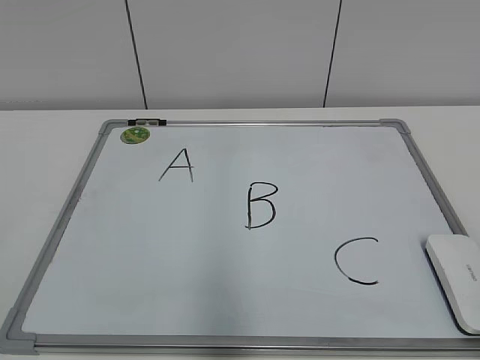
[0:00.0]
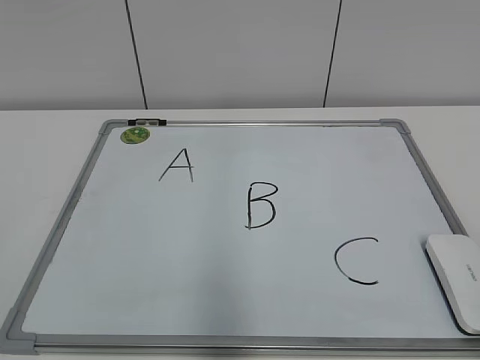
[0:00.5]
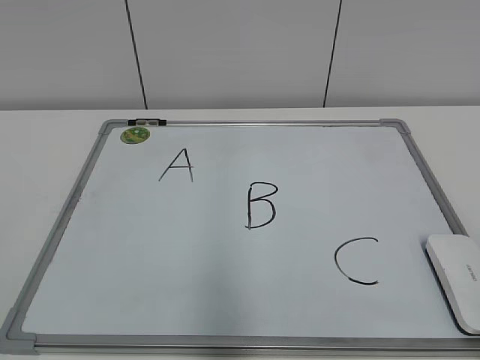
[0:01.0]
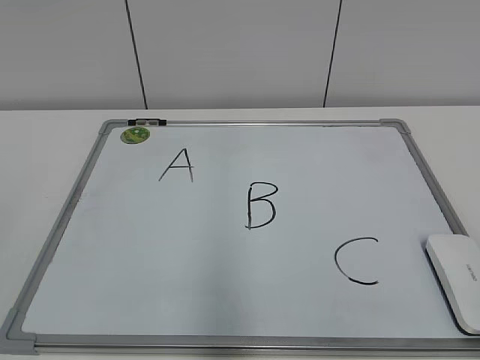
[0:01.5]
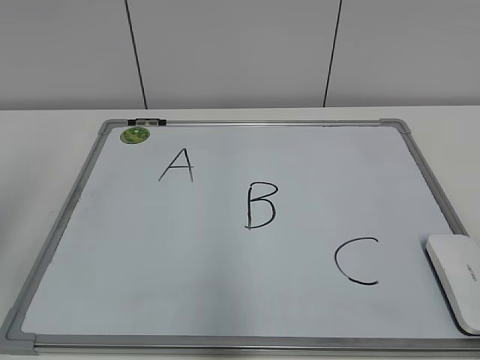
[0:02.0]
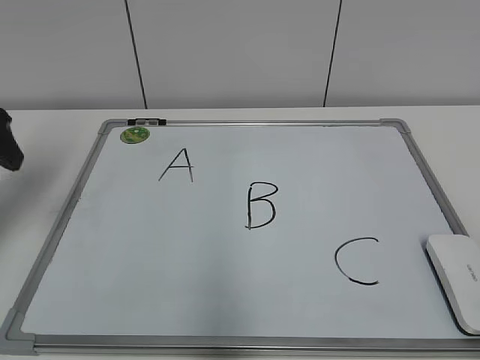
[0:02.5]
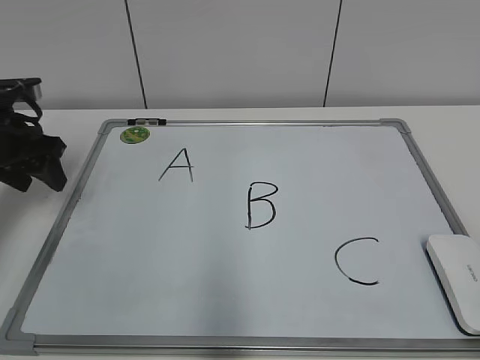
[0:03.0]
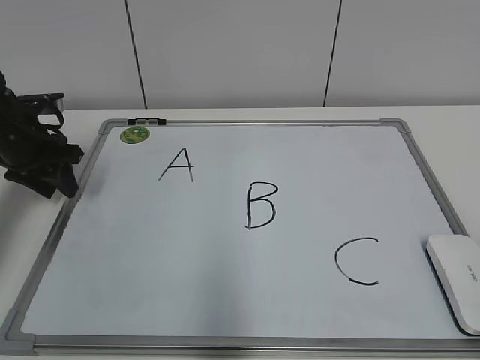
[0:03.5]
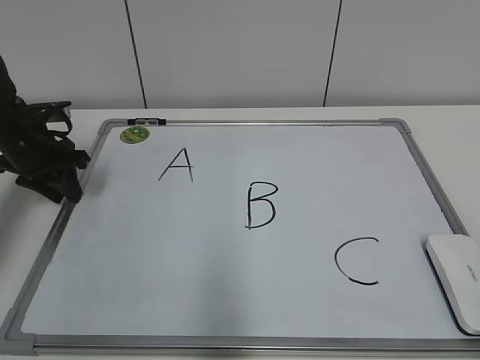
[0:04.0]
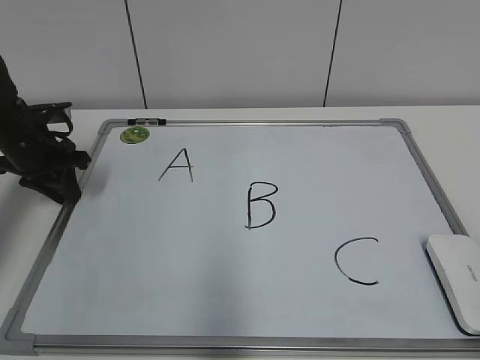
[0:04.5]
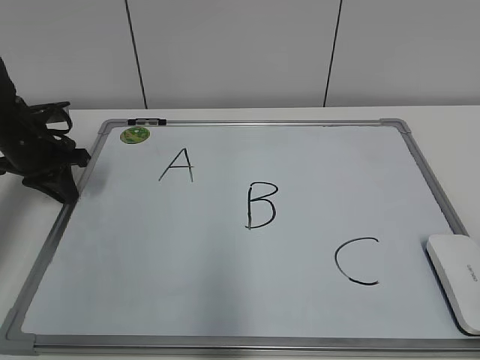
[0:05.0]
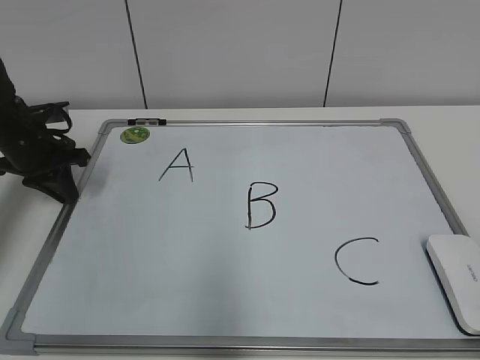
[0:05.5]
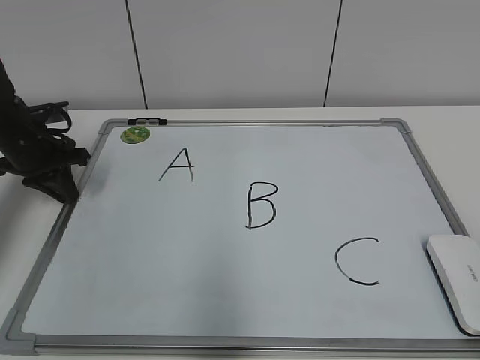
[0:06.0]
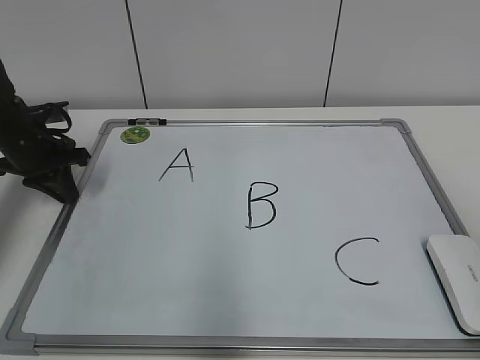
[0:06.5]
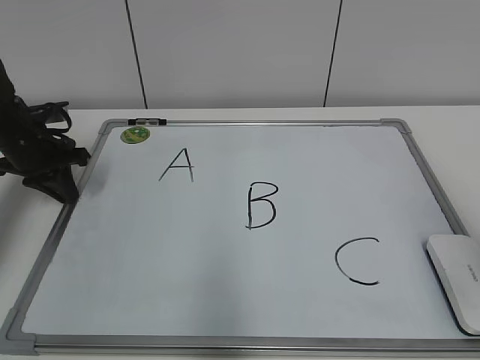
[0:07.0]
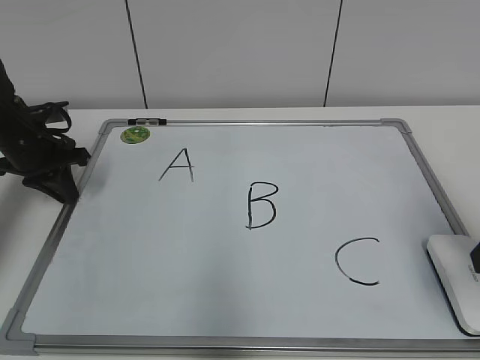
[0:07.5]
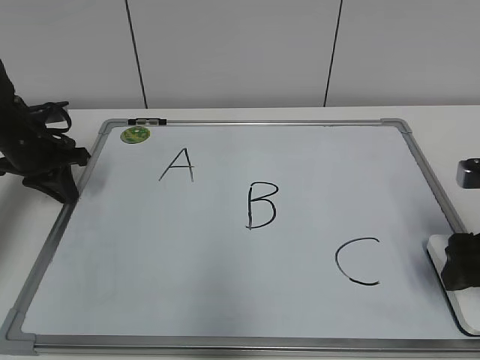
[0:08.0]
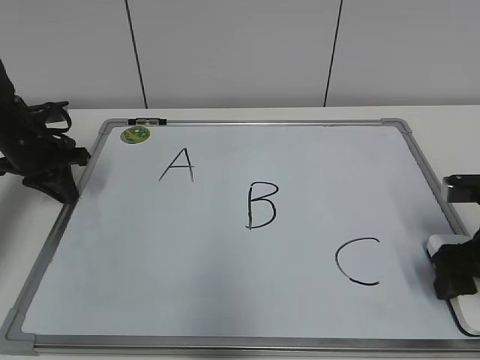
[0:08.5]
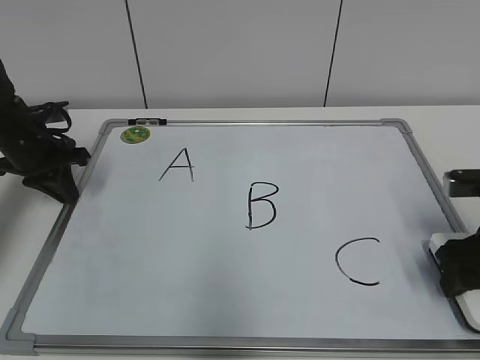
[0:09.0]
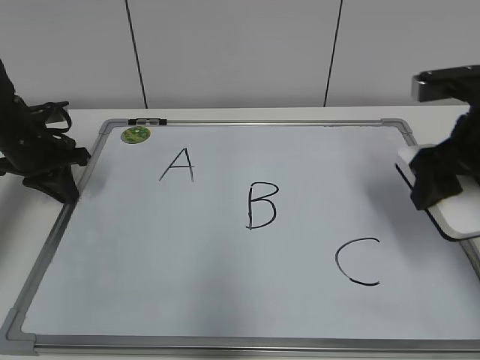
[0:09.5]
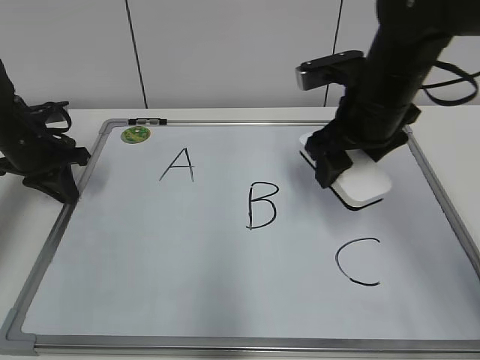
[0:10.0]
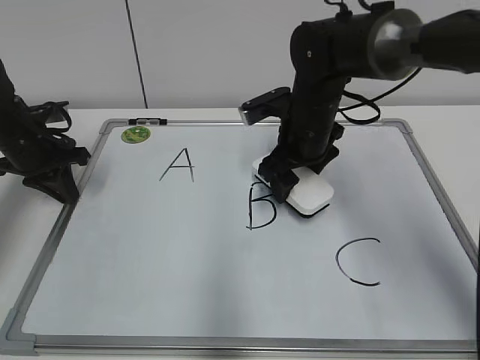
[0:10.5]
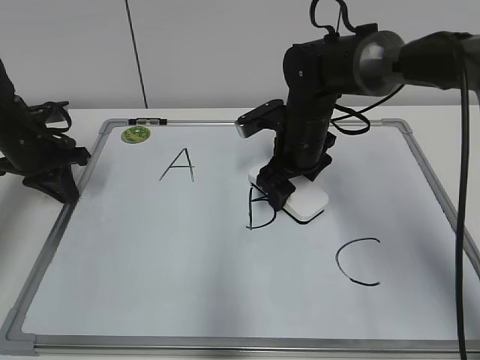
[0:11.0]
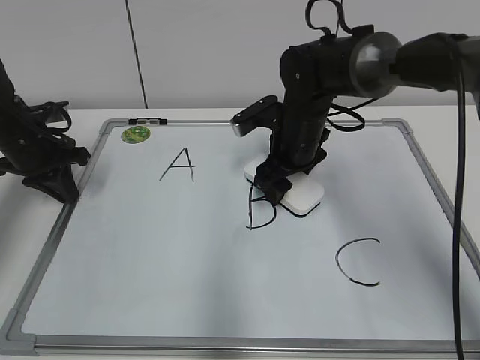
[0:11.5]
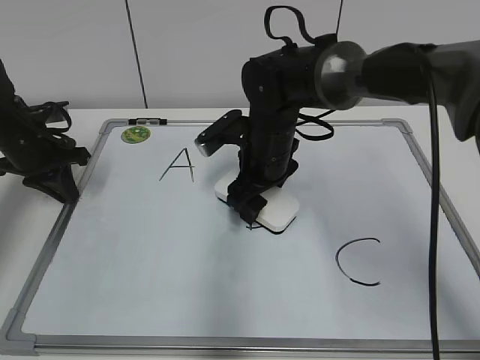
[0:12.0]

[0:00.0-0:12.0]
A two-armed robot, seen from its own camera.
Task of the whole recording: pick up the eraser on the blackboard and erase the letter "B".
Step, 0:00.0 to 0:05.0: Hold the drawing board steady with your left hand.
Step, 0:05.5 to 0:08.5: Grab the eraser with your right hand.
0:02.0 to 0:04.0: The left gripper is displaced forward and downward by about 30 cm, and closes up.
0:04.0 to 0:06.0: The two grippers keep their place.
0:06.0 to 0:08.0: The right gripper travels forward and downward by about 25 cm, and opens.
0:08.0 to 0:10.0: The right gripper travels to the left, forward and upward by some 20 cm, and closes up.
0:10.0 to 0:12.0: The right gripper heads to the left and downward, covering about 15 cm.

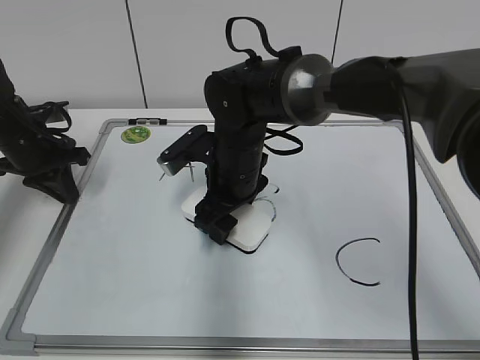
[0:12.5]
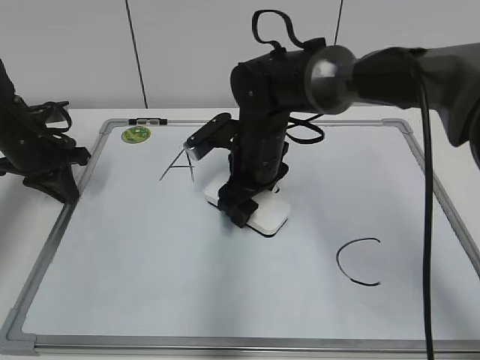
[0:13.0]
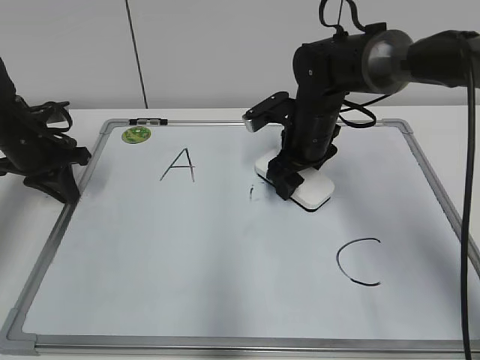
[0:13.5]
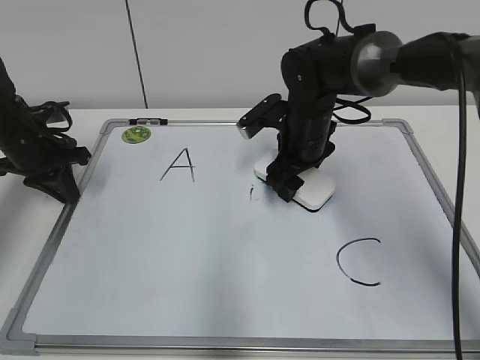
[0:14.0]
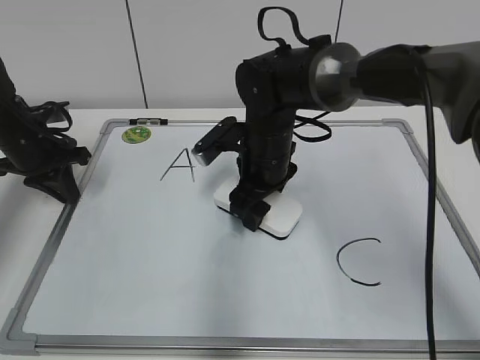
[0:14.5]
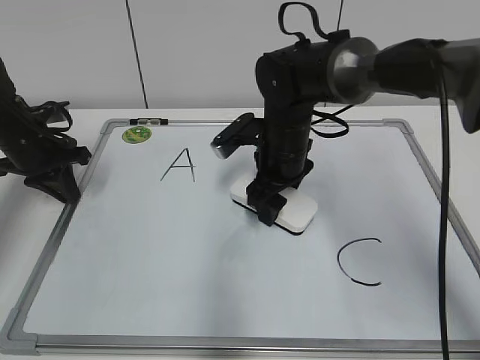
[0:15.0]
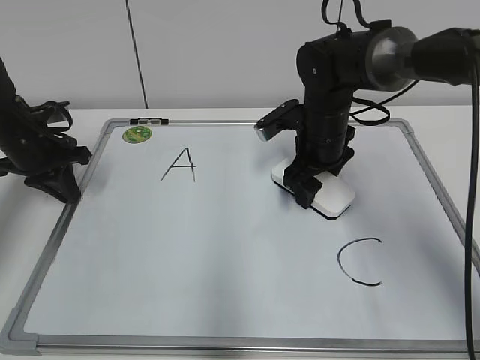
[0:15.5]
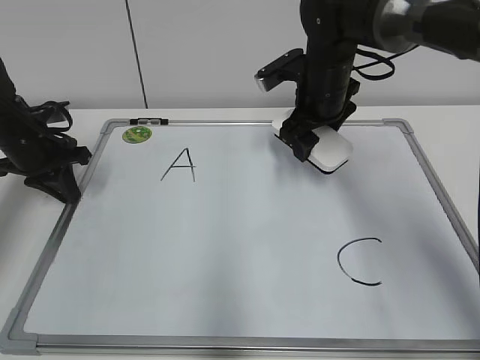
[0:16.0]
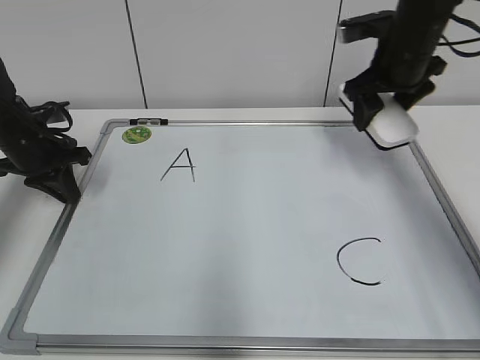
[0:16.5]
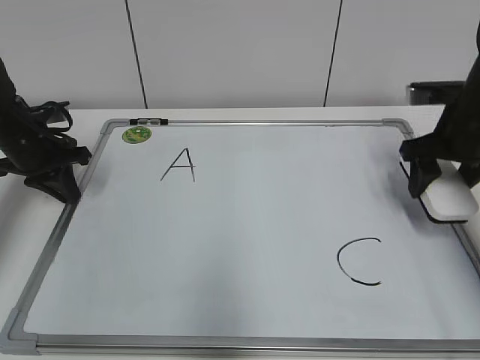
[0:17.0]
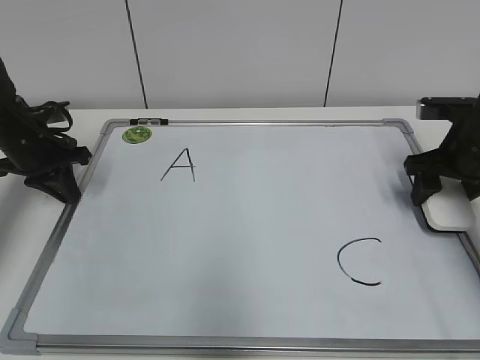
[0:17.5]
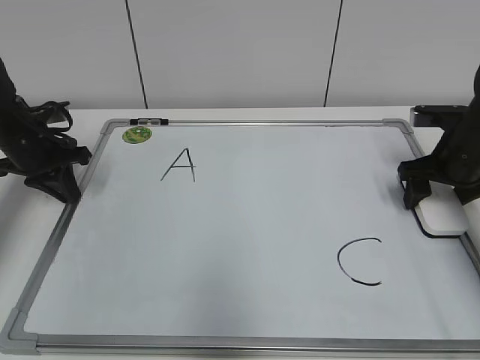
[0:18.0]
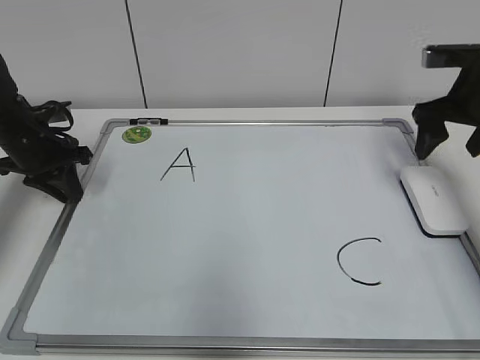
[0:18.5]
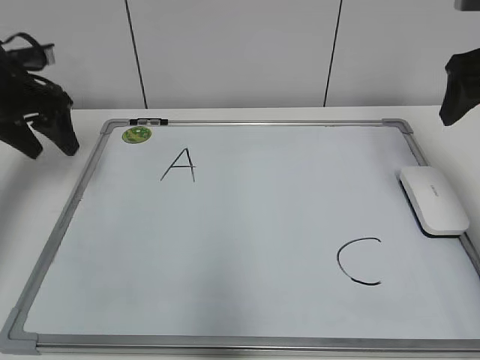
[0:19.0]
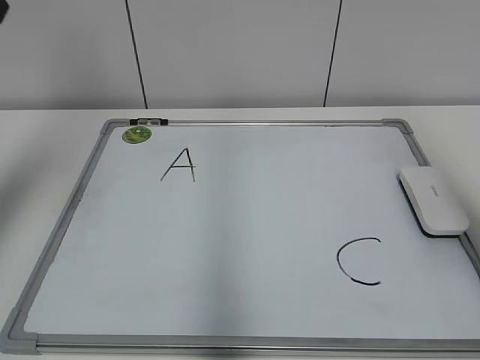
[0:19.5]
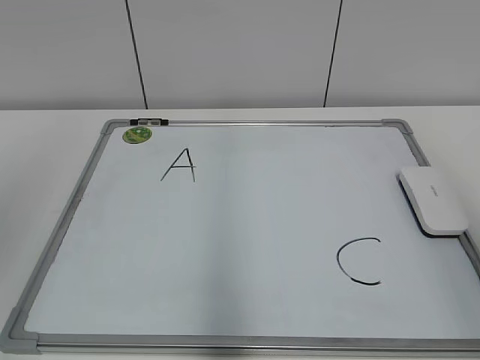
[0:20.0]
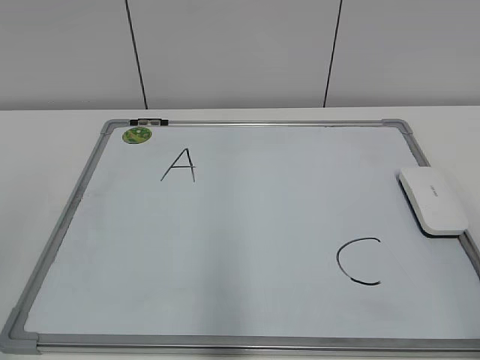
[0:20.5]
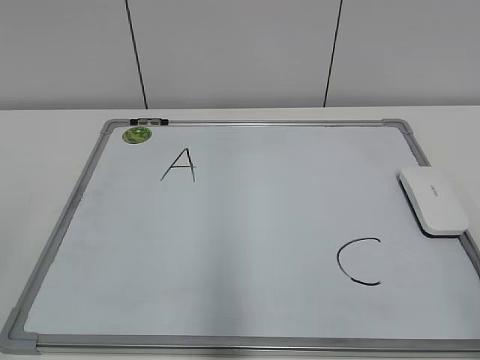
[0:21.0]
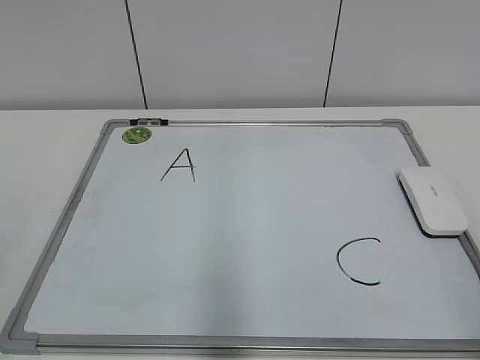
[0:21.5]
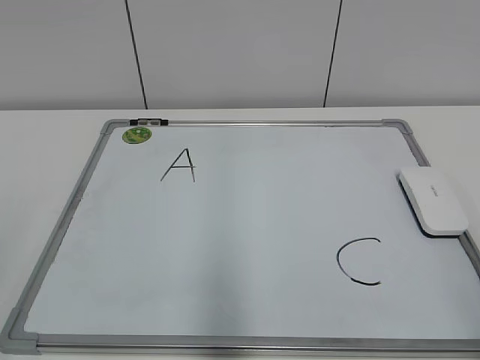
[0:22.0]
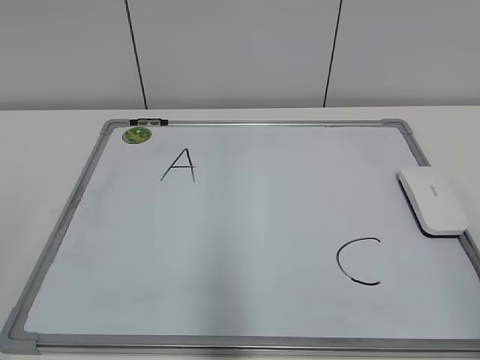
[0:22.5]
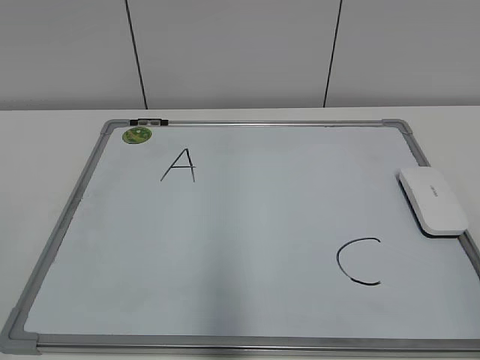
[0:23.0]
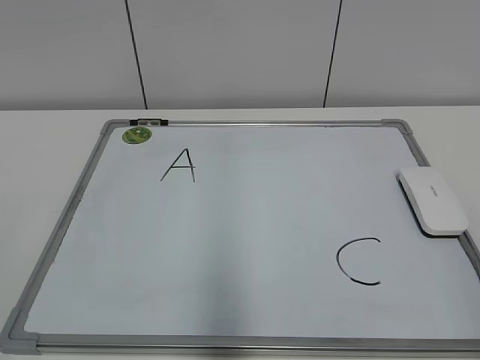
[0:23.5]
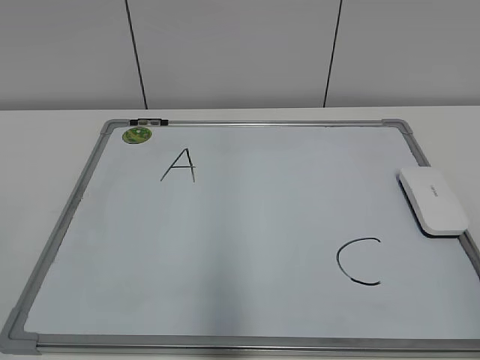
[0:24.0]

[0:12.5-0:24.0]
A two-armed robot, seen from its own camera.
Task of the whole recording: pick up the eraser on the blackboard and erase the letter "B".
Step, 0:12.5 to 0:15.0: Erase the letter B with your right hand.
Step, 0:15.5 to 0:18.0: Put down the eraser with your right hand.
0:14.5 to 0:16.5: The right gripper travels to the right and upward by roughly 20 cm.
0:16.5 to 0:18.5: The right gripper shifts some 5 cm to the right, reaches roughly 10 cm downward, then returns, and opens.
0:18.5 to 0:20.0: The two grippers go roughly 35 cm backward and upward. The left gripper opens.

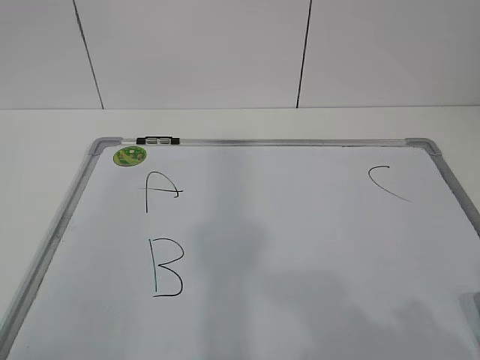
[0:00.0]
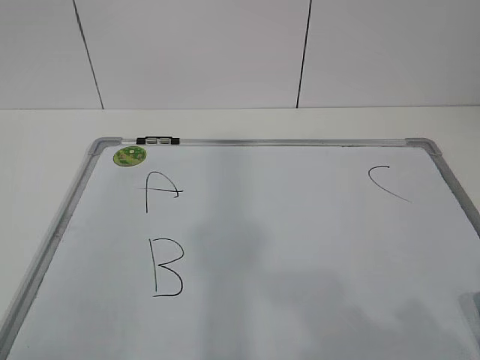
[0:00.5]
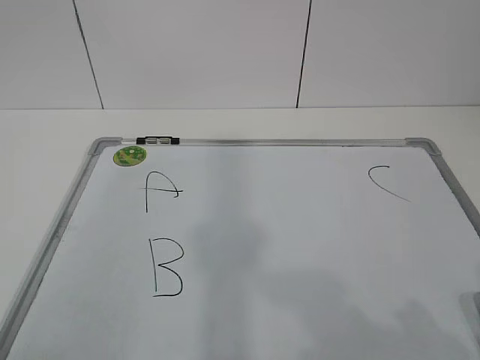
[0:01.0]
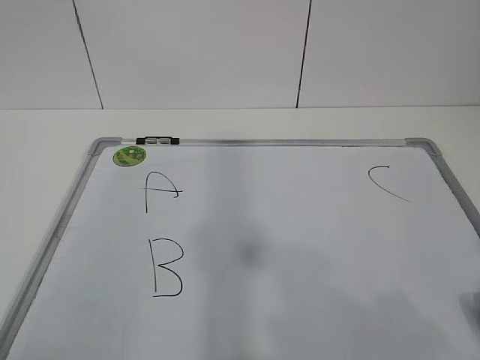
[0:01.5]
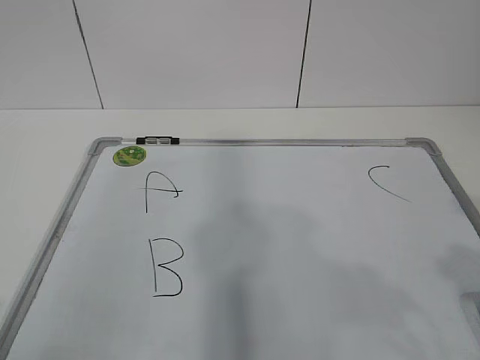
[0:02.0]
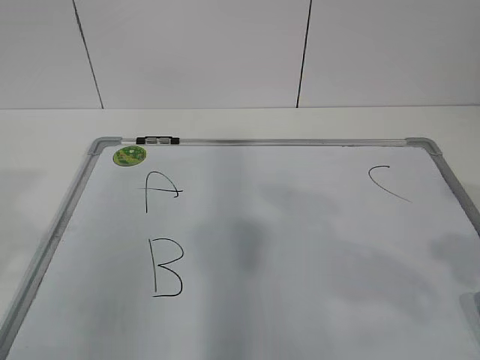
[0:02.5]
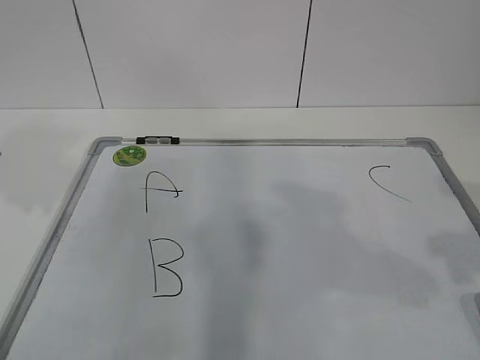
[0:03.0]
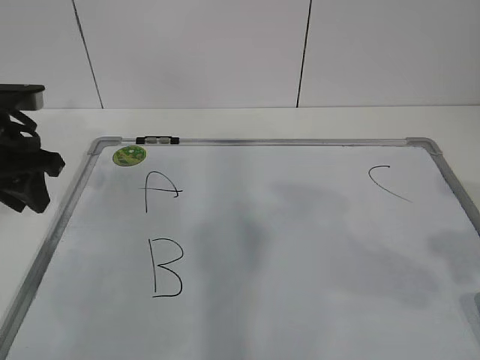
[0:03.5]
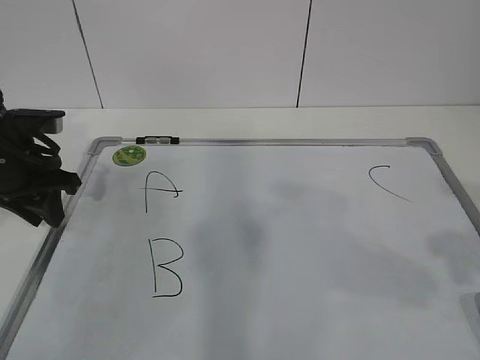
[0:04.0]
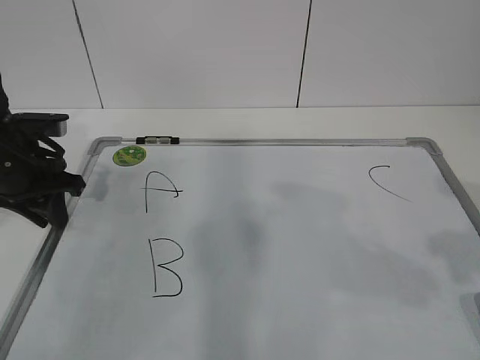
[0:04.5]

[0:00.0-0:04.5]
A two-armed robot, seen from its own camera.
Task of the whole recording: pick up the eraser on the blackboard and erase the letter "B".
Step, 0:00.0 to 0:03.5: Hold the drawing board steady with your left hand.
0:02.0 to 0:04.5: The left gripper moves forward and downward, about 35 cm.
